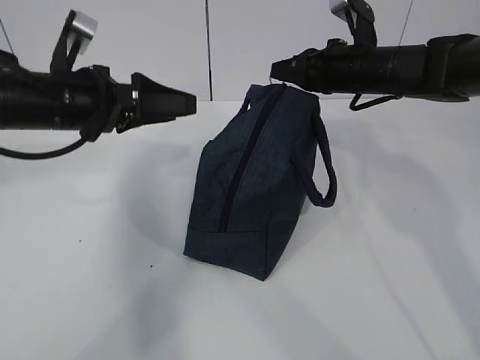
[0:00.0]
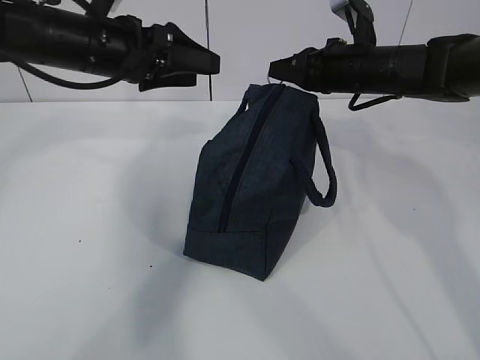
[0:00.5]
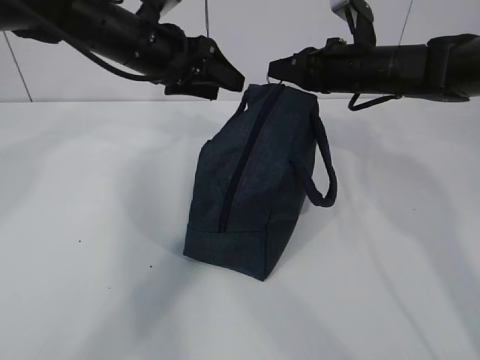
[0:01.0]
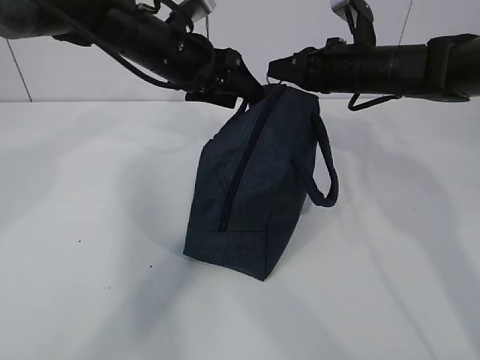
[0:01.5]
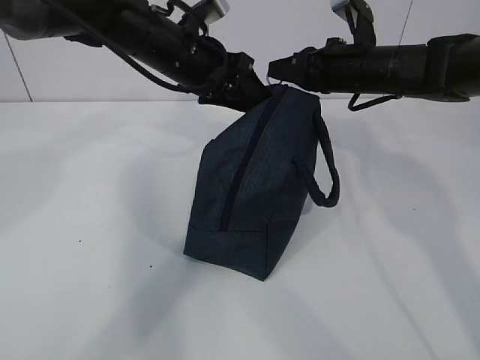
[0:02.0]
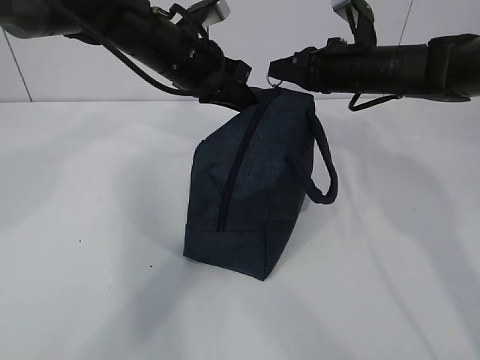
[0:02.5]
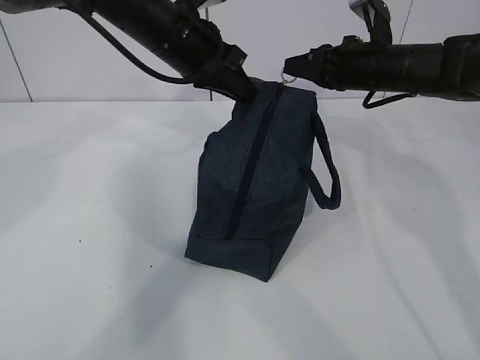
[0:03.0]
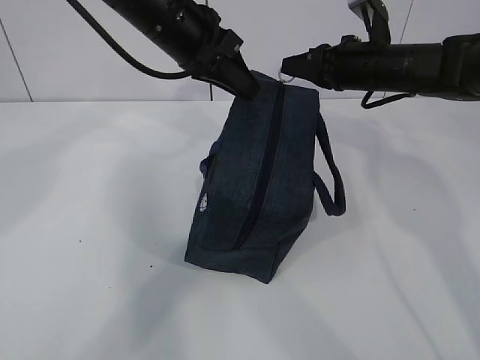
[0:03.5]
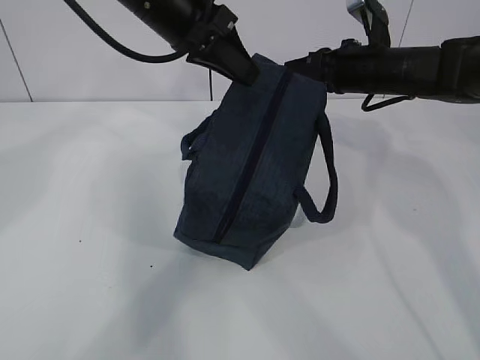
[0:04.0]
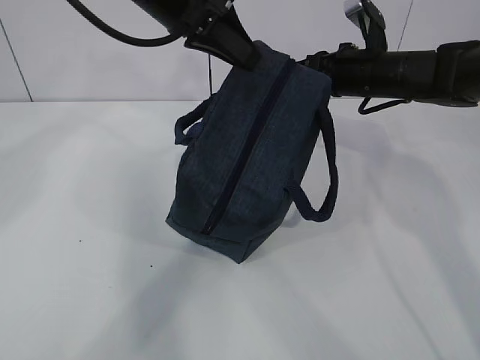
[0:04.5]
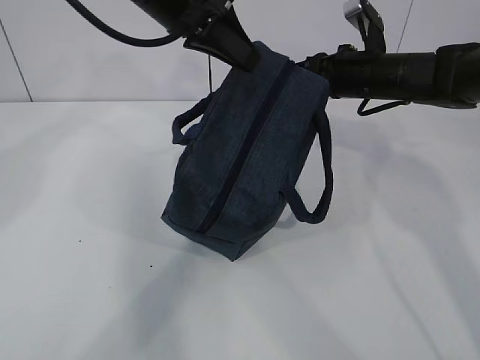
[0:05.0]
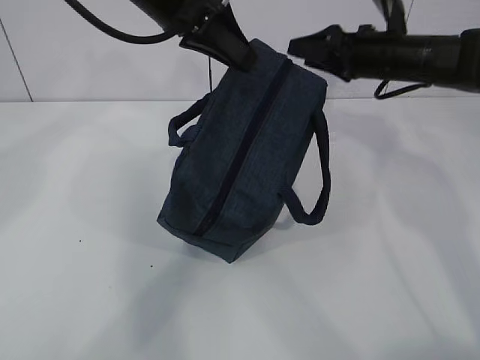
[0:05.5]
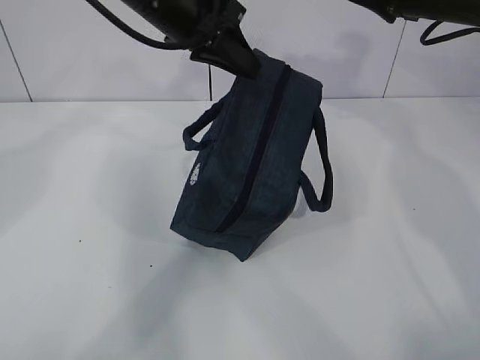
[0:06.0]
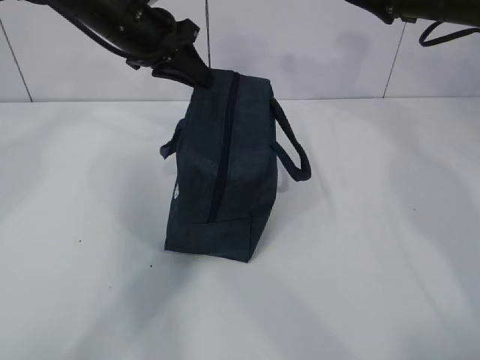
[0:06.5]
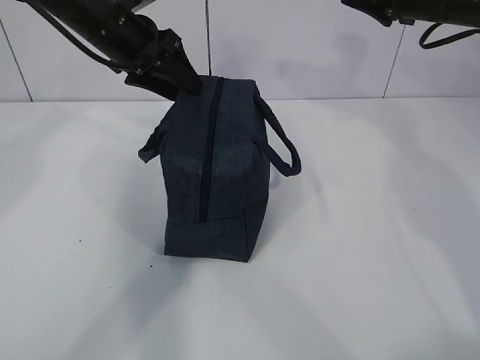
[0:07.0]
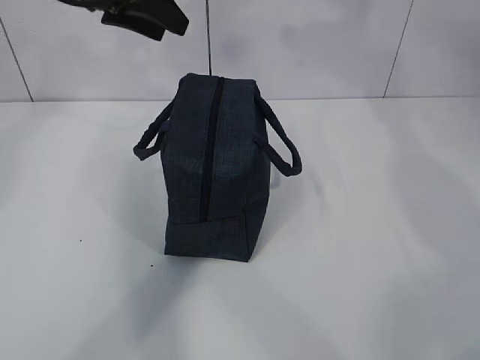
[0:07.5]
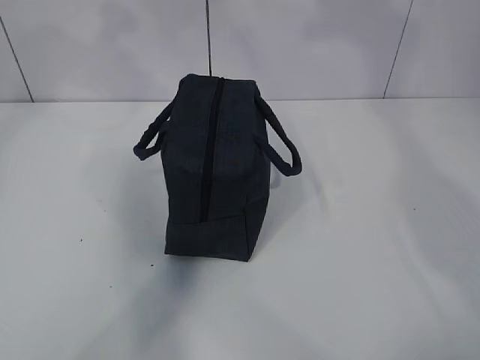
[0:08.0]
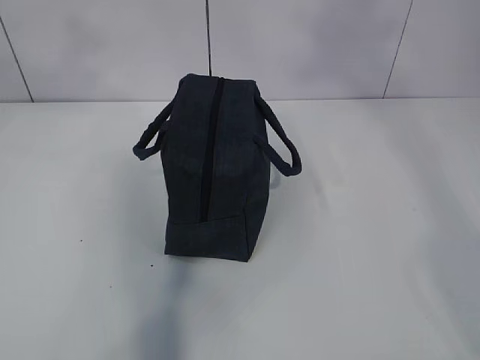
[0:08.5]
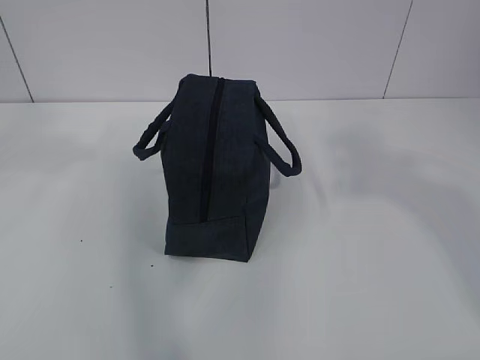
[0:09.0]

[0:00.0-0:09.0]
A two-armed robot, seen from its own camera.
0:00.0 to 0:02.0: The left gripper heads to the right and forward, covering roughly 15 cm.
0:02.0 to 0:04.5: The left gripper travels upward by some 10 cm, and closes.
0:04.5 to 0:07.0: The left gripper is displaced to the left, downward and forward by roughly 10 cm, and opens up. The right gripper heads upward and to the right, covering about 10 cm, and opens.
0:07.0 to 0:09.0: The left gripper is displaced backward and upward by some 35 cm; the right gripper shifts roughly 35 cm backward, and closes.

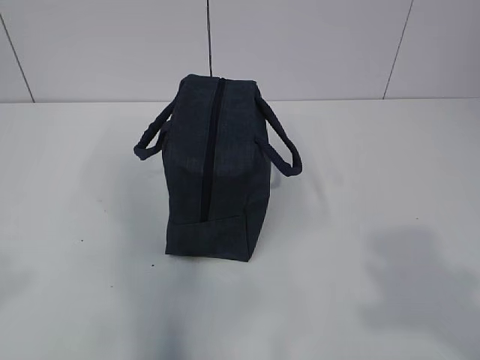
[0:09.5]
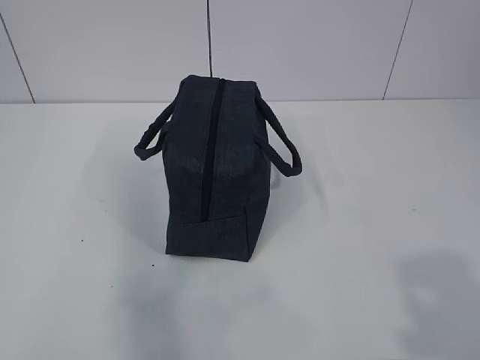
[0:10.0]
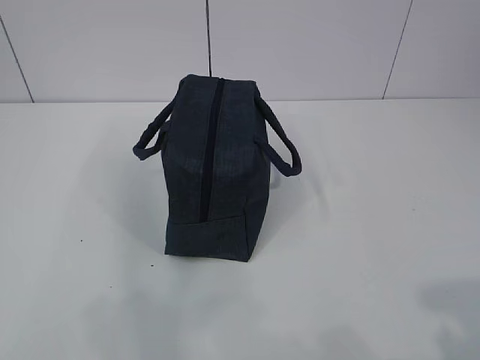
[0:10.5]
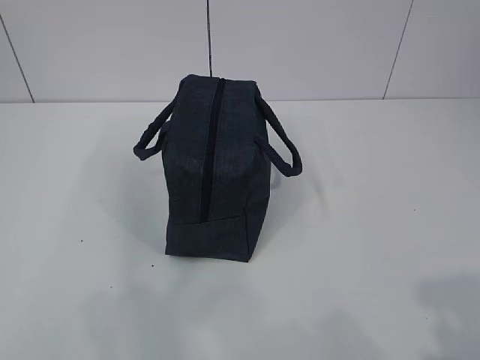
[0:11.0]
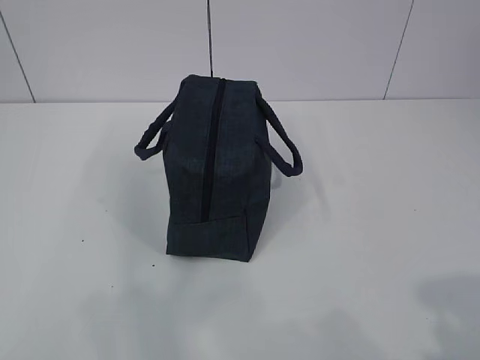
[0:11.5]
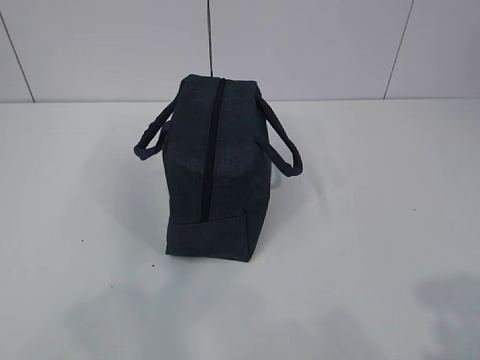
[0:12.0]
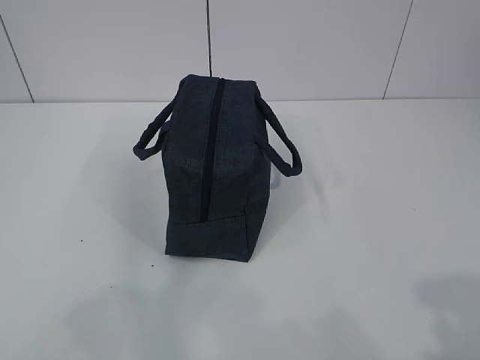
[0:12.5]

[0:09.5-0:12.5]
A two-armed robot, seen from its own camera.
0:09.5 to 0:11.0: Both grippers travel together downward, roughly 10 cm. The right gripper opens up.
